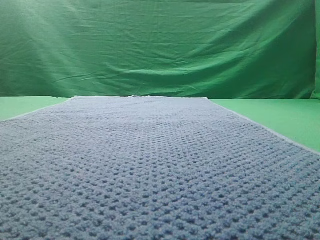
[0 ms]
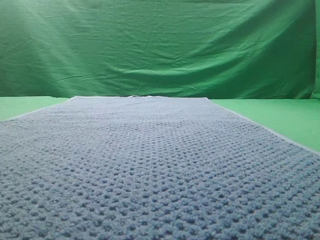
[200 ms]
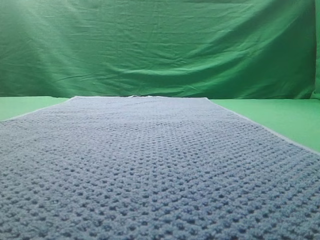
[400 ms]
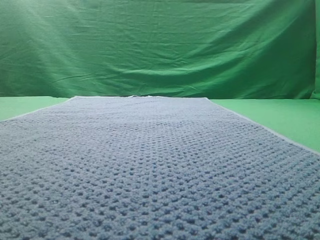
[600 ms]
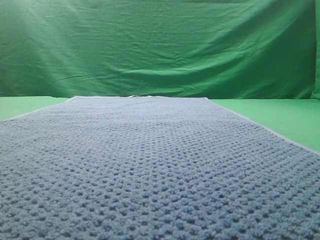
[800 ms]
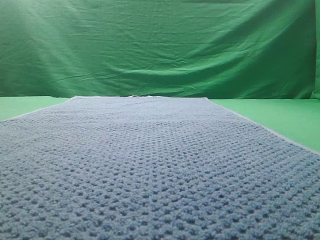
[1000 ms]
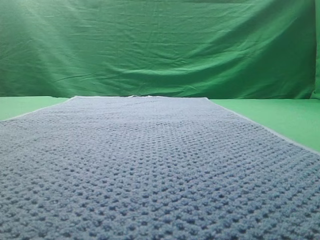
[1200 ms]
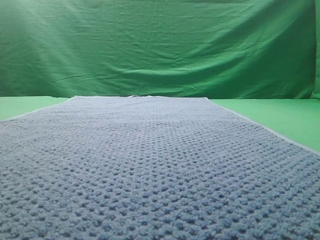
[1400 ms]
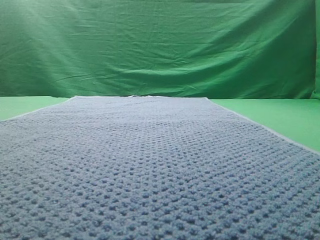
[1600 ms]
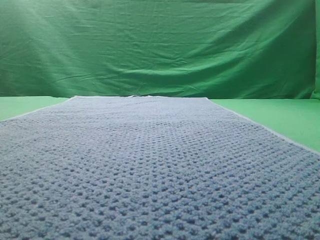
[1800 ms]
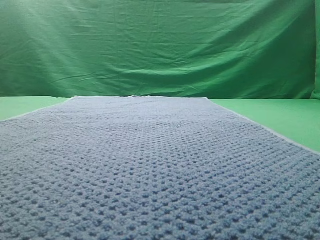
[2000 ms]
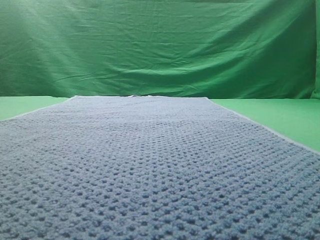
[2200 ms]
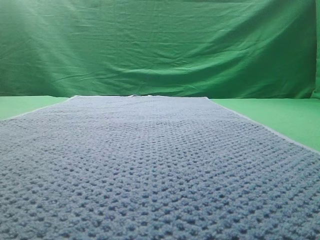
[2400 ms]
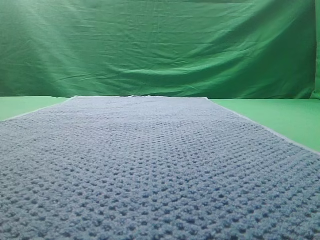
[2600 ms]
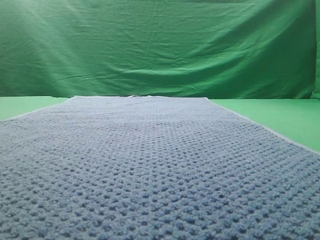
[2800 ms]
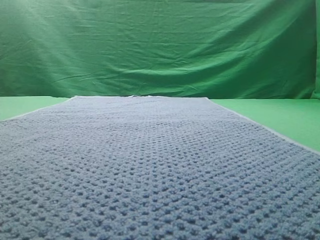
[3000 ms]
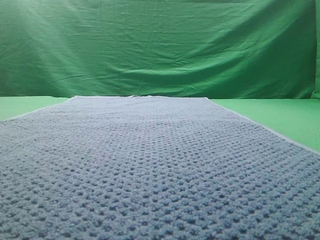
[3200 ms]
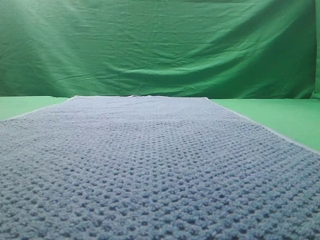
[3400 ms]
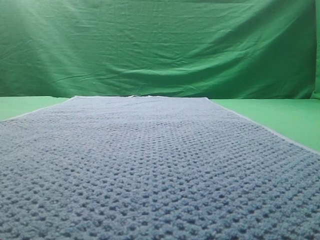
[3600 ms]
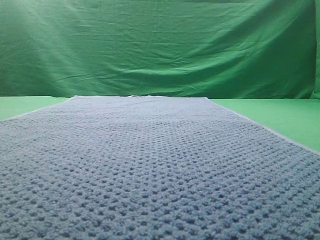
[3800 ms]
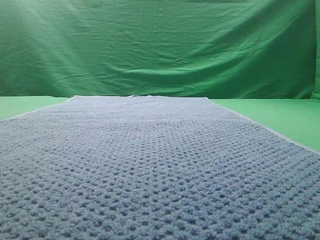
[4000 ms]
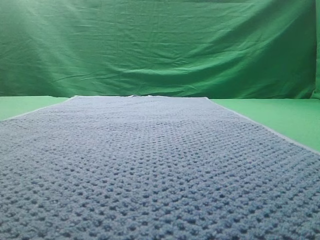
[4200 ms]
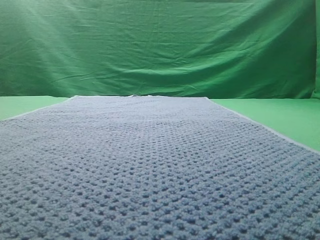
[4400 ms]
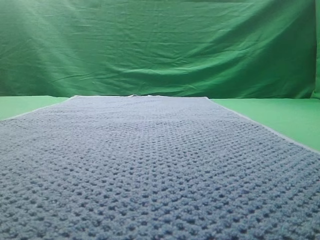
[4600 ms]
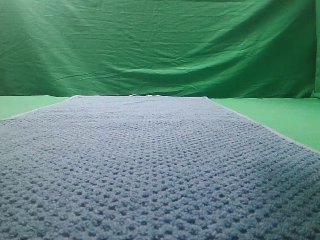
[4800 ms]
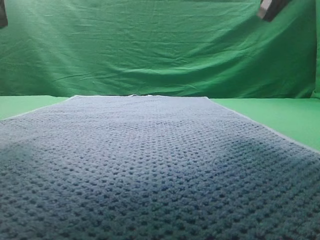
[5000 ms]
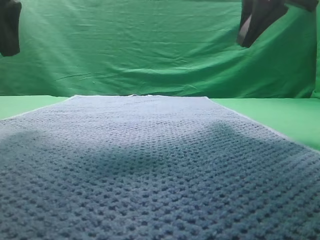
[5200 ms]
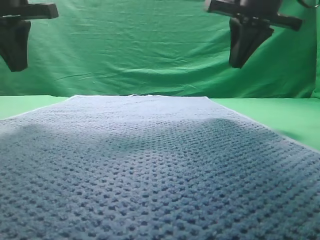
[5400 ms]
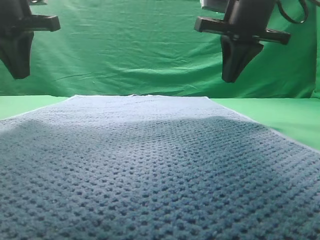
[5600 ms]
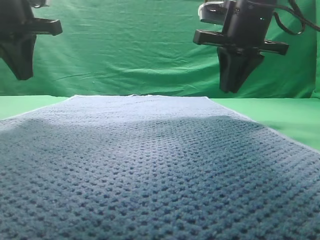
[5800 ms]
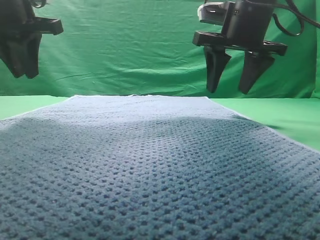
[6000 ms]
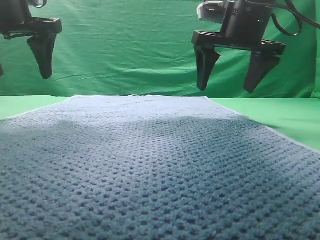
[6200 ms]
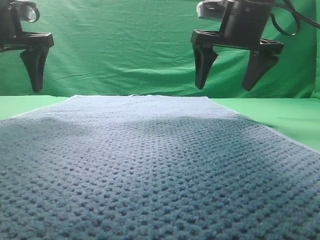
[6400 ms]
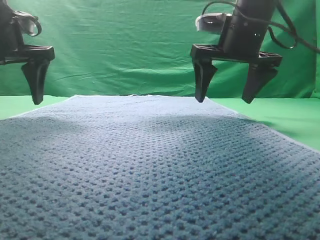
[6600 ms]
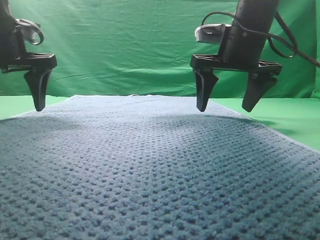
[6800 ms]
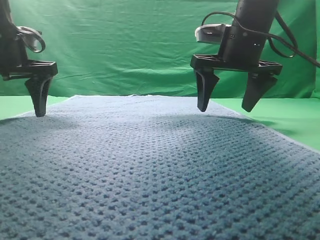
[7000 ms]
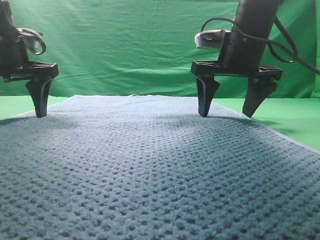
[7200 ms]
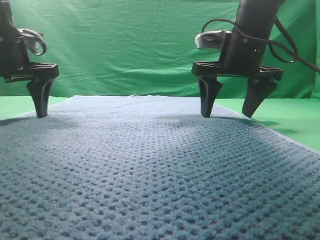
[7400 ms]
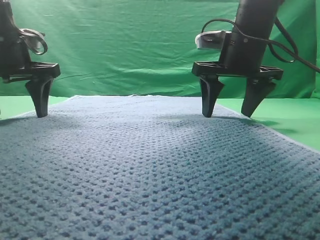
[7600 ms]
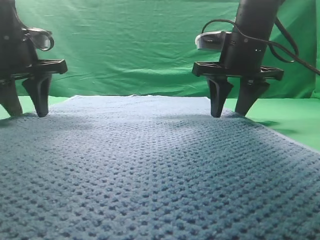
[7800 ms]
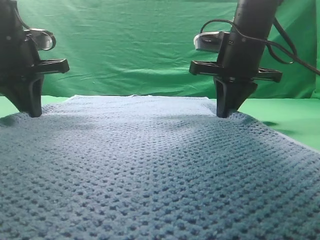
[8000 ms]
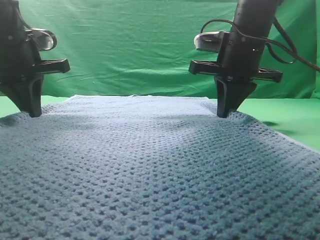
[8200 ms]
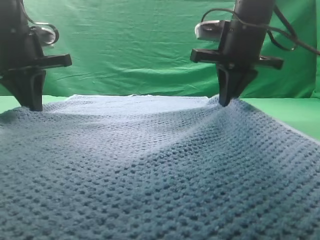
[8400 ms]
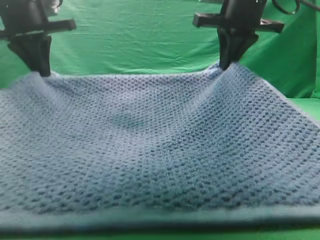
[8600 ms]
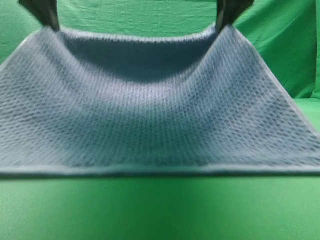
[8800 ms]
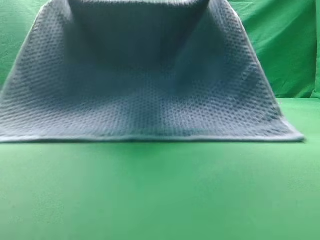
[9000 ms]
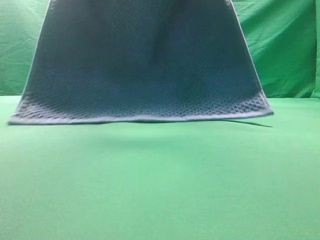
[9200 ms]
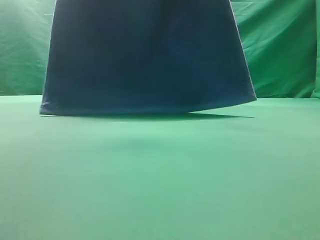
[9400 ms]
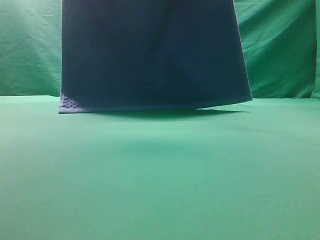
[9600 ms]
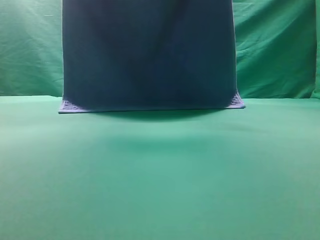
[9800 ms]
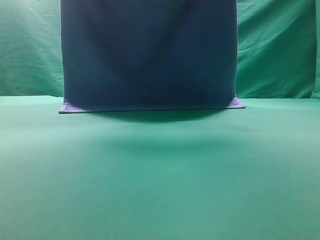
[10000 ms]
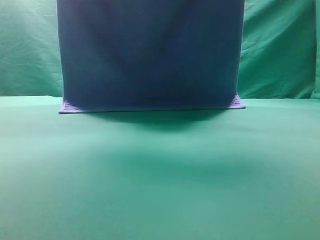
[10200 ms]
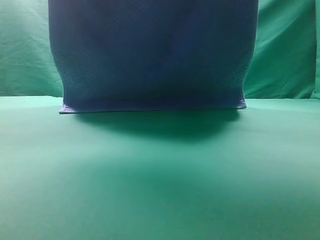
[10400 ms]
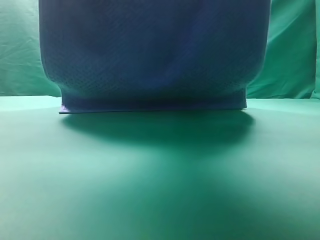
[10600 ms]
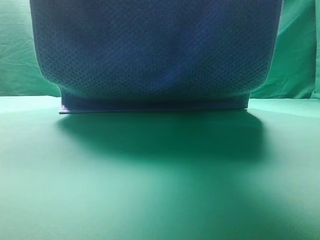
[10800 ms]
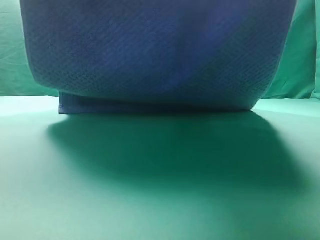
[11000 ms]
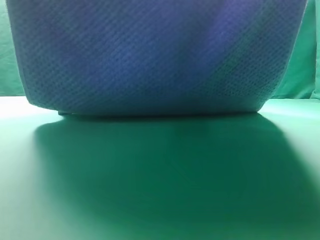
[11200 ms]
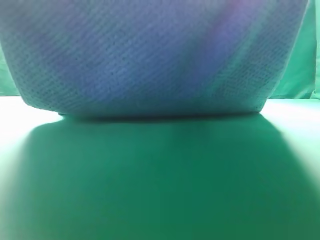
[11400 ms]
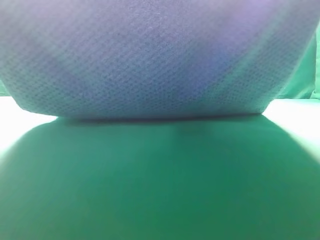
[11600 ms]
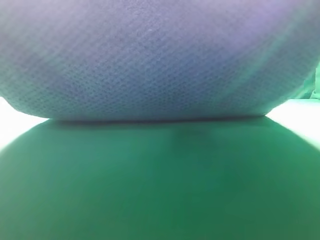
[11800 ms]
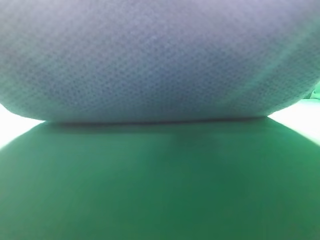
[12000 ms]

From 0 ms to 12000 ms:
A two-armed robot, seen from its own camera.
Task of the whole recording: fold the towel on the table twice.
Step, from 0 ms to 9400 ms: pick up the towel with two arm.

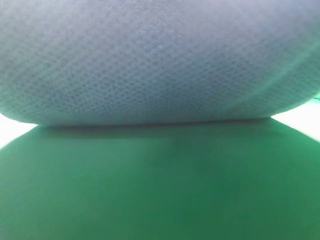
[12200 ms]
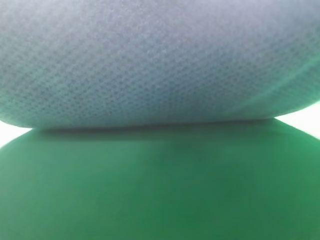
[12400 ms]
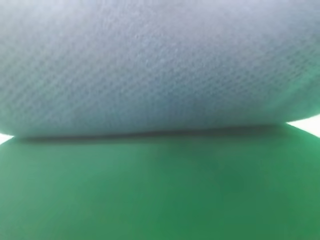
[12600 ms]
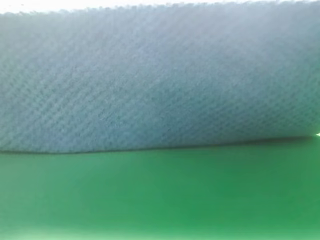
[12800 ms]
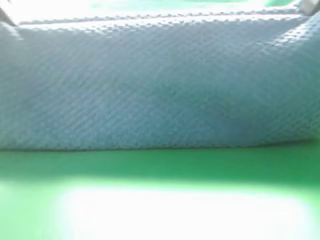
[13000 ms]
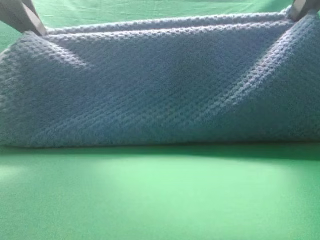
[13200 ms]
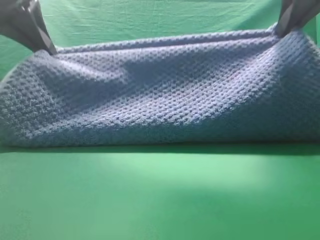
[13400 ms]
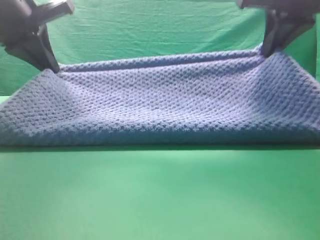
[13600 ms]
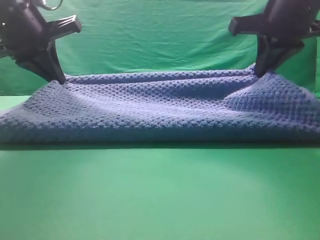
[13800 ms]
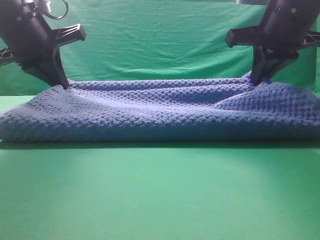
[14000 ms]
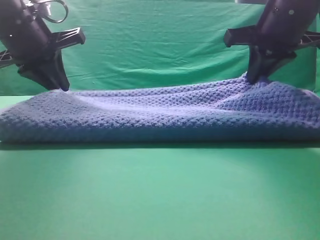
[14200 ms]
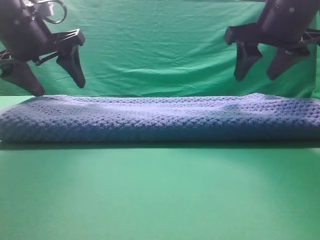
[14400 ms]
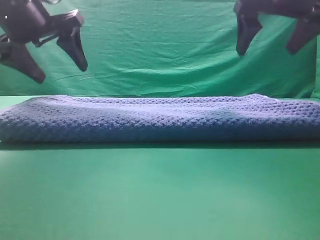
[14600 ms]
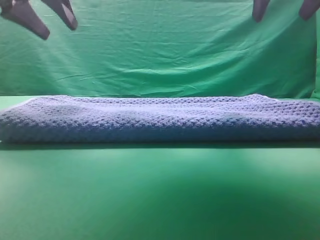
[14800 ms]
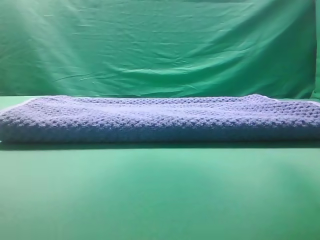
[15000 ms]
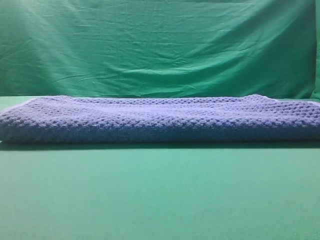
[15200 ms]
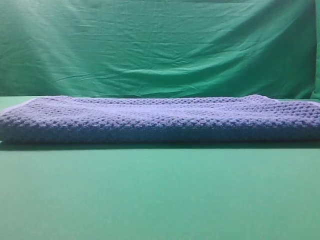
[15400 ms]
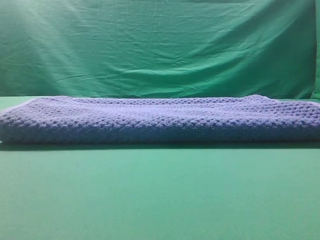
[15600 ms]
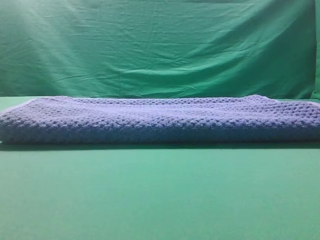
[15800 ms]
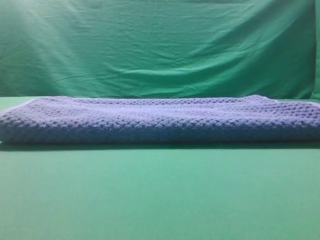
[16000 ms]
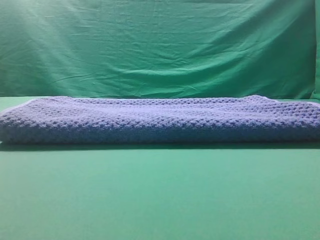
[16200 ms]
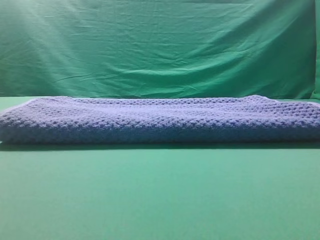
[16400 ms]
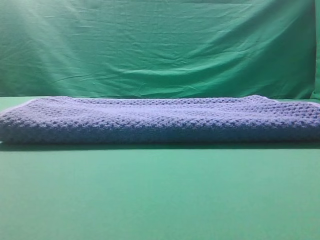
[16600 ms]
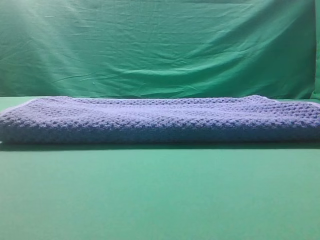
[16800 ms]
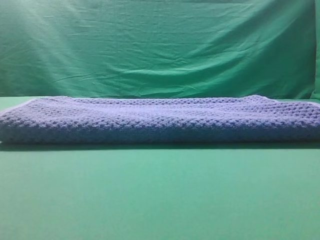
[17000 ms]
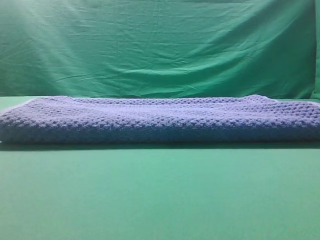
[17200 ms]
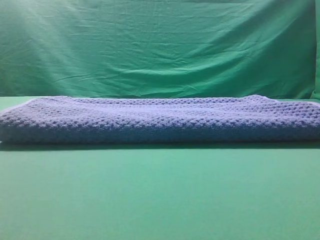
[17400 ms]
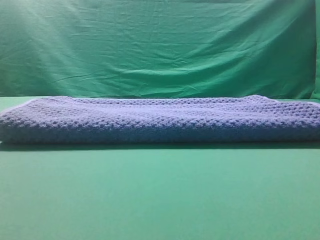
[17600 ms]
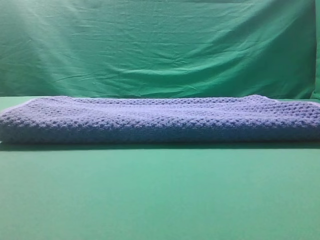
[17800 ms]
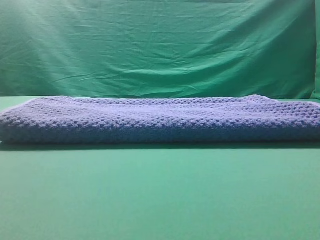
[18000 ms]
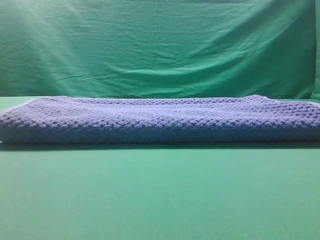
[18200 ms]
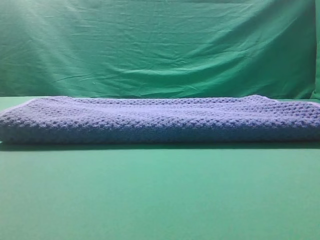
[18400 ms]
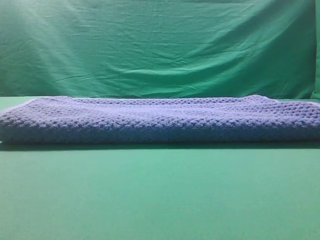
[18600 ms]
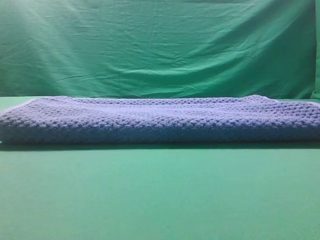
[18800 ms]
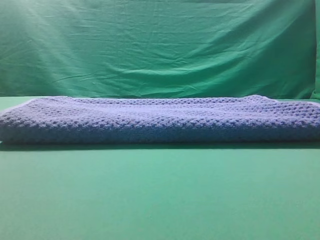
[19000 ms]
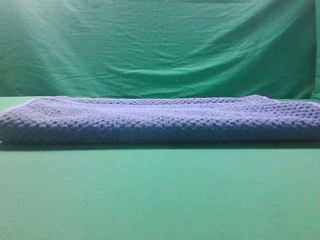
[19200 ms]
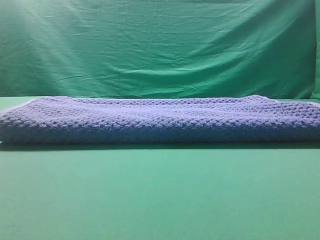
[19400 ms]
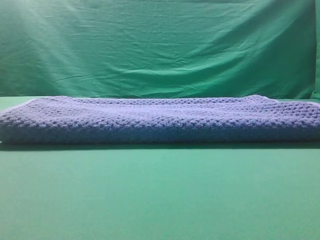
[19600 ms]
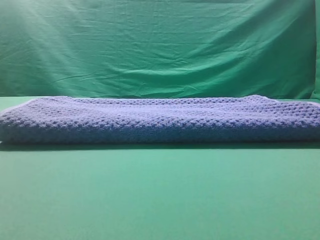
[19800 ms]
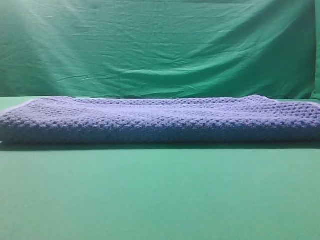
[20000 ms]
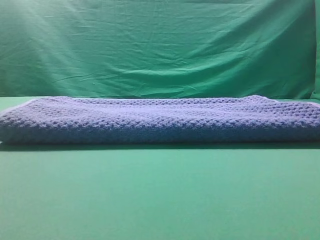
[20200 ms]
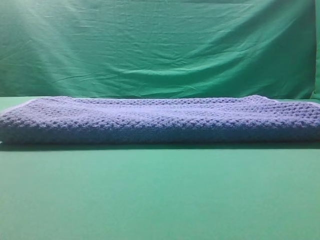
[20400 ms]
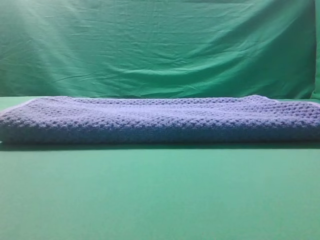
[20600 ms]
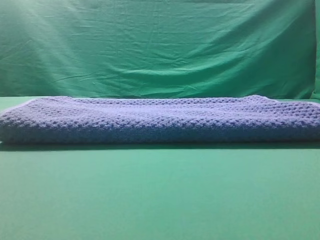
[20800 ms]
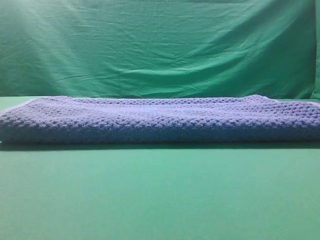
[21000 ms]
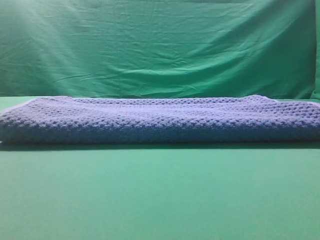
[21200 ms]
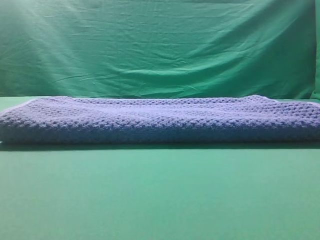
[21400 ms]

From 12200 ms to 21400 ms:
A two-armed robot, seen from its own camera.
Task of the whole recording: fold the towel on the table twice.
Step, from 12200 ms to 14600 ms: Fold the towel twice on the table.

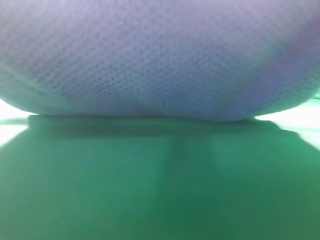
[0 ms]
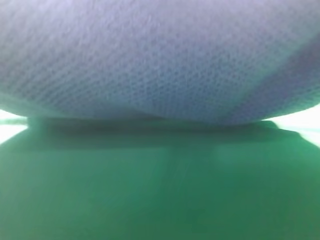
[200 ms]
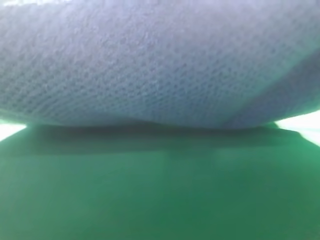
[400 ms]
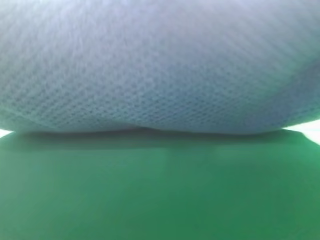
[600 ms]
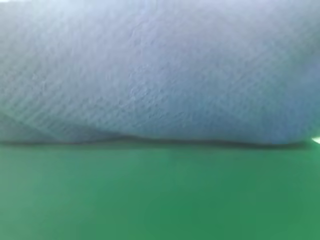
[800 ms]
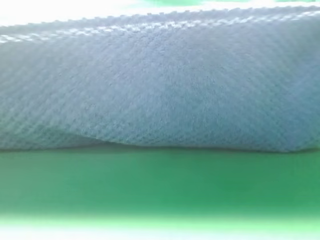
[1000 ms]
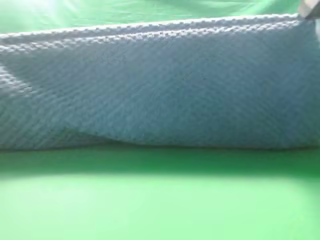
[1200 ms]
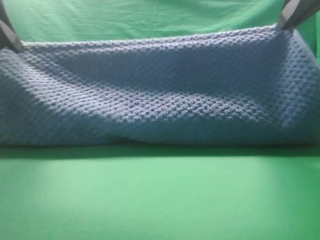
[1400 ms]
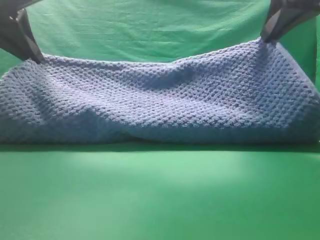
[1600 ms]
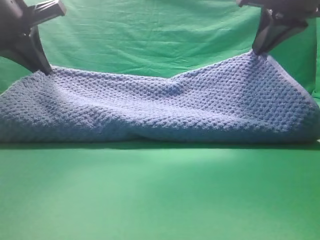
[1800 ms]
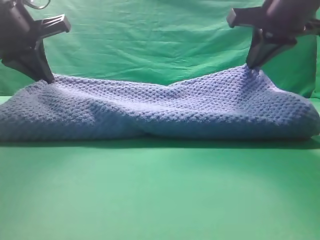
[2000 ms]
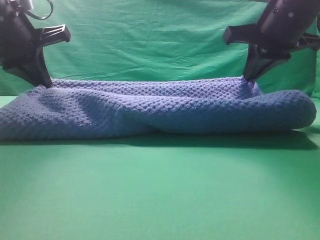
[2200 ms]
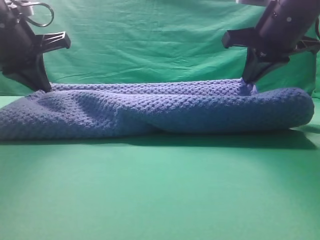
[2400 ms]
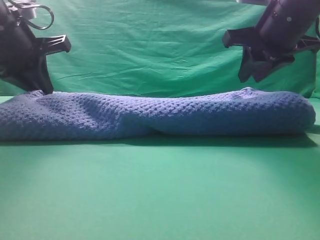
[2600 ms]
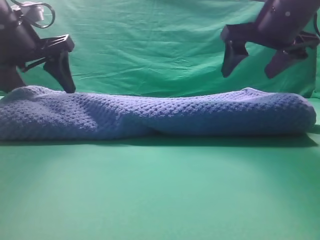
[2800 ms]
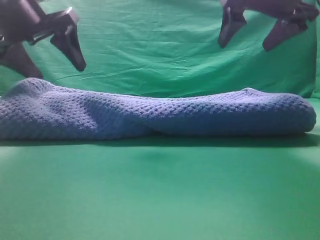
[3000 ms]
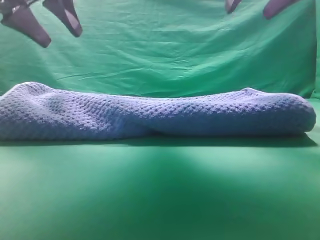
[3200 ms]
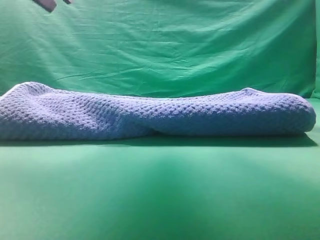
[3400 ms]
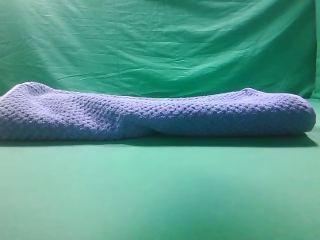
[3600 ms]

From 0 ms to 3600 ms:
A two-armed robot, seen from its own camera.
Task of the whole recording: fold the towel on the table twice.
Step, from 0 ms to 3000 ms: Fold the towel twice on the table.
